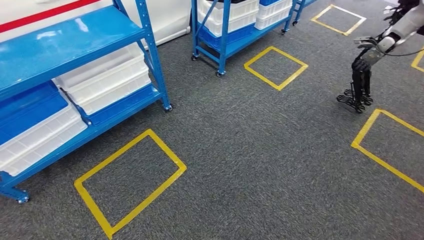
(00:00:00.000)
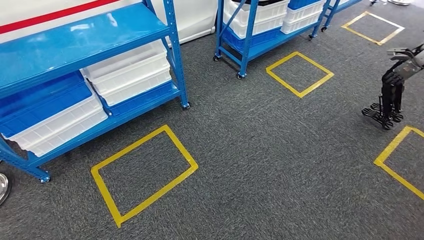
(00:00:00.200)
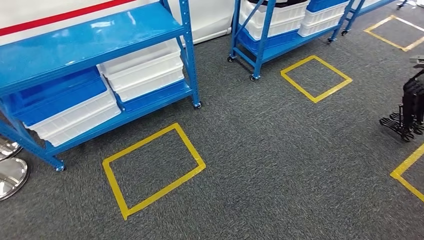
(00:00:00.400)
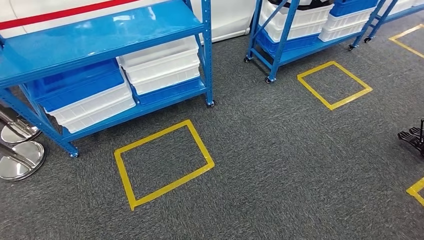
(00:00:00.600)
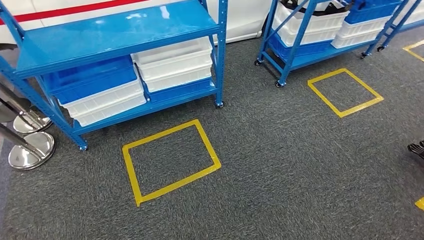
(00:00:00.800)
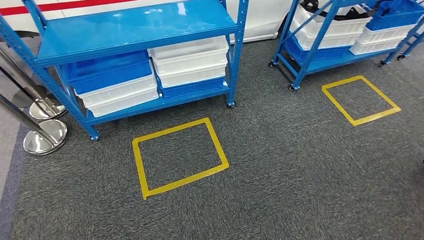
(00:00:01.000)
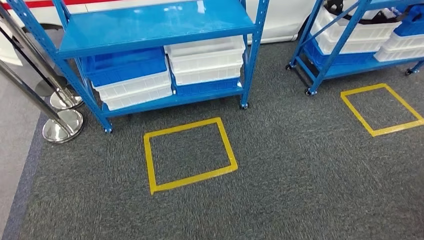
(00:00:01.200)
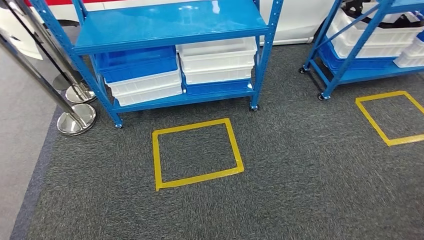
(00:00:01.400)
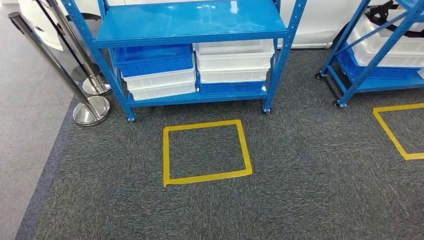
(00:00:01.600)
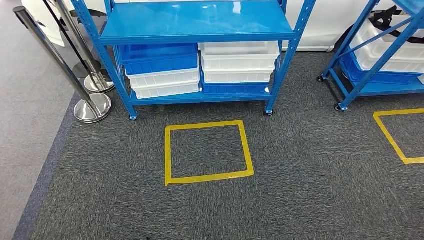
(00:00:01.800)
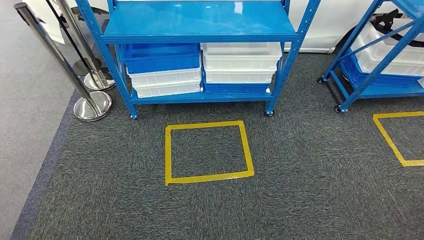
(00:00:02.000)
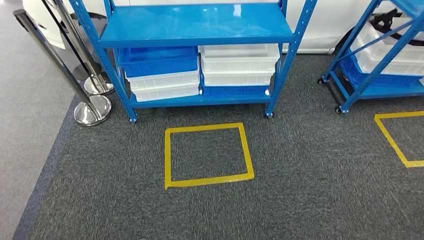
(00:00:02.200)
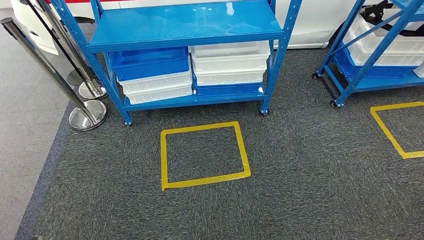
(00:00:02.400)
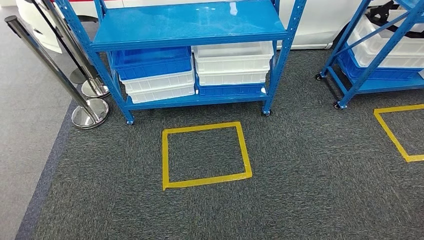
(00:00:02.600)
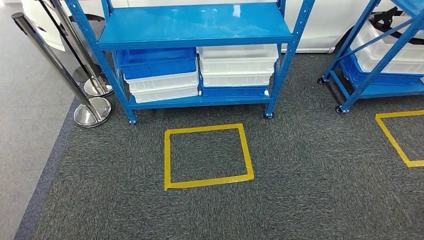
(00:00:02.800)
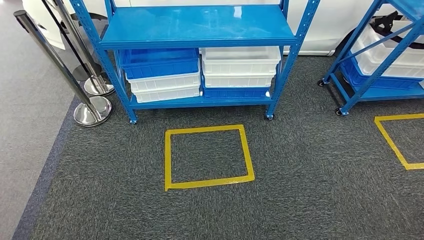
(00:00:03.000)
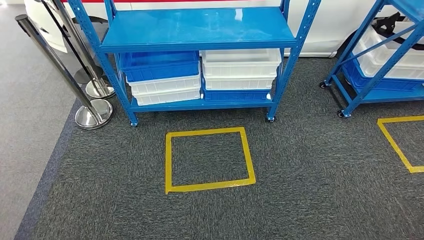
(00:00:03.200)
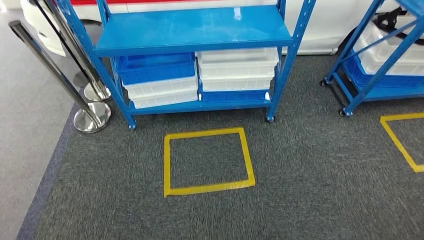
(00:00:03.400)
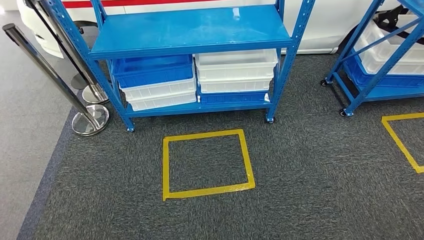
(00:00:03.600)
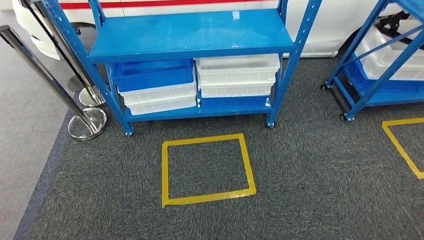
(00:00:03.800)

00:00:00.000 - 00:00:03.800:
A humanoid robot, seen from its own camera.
Step, 00:00:00.000 - 00:00:03.800: Return to the initial position at the shelf.
